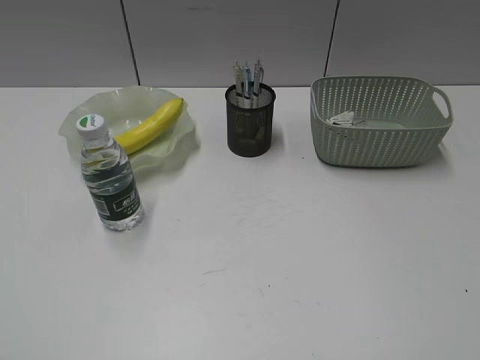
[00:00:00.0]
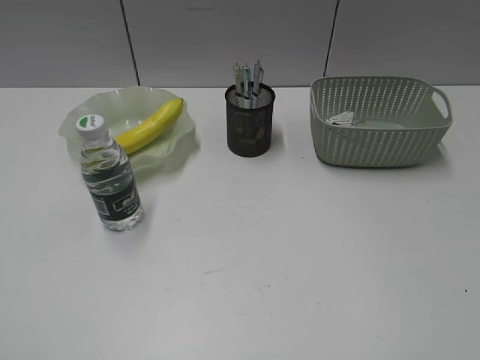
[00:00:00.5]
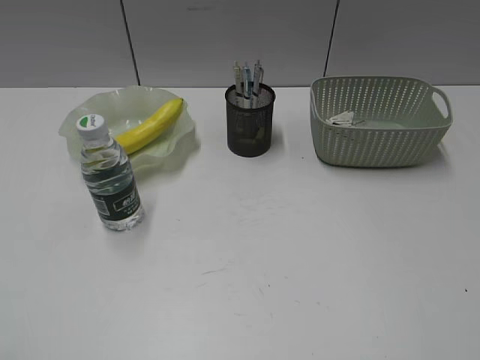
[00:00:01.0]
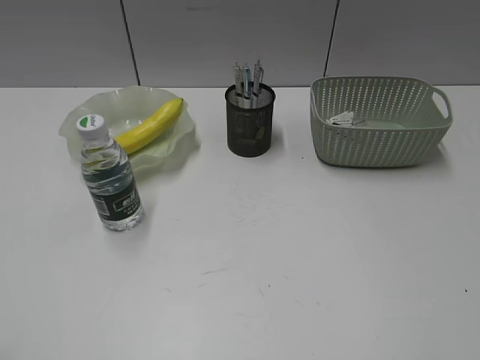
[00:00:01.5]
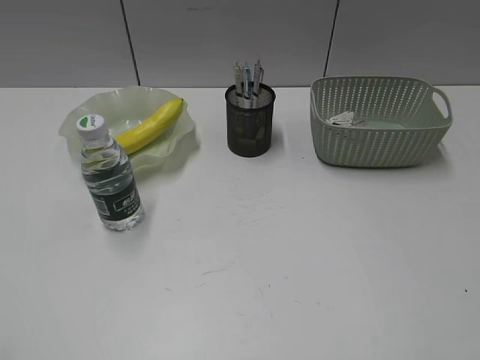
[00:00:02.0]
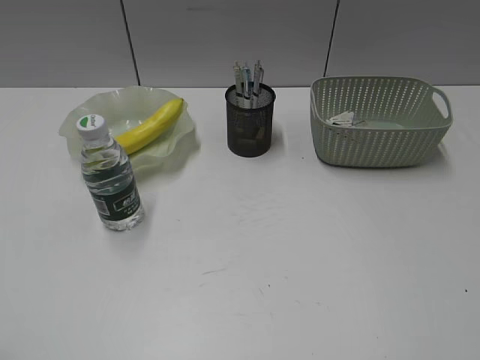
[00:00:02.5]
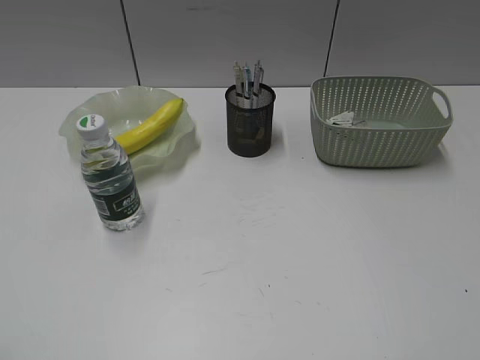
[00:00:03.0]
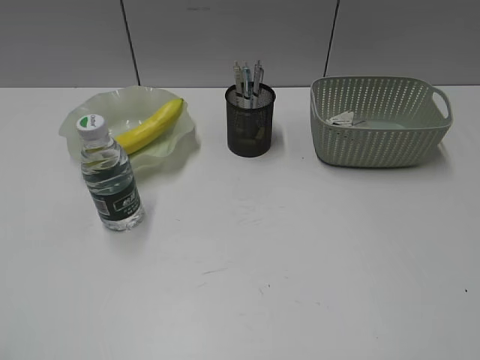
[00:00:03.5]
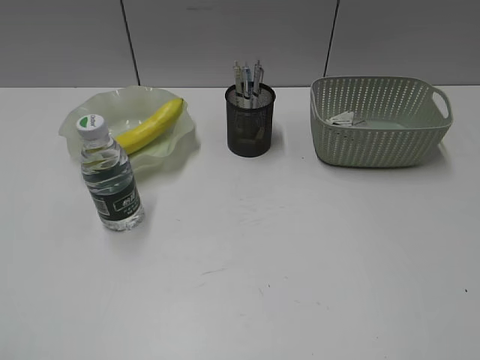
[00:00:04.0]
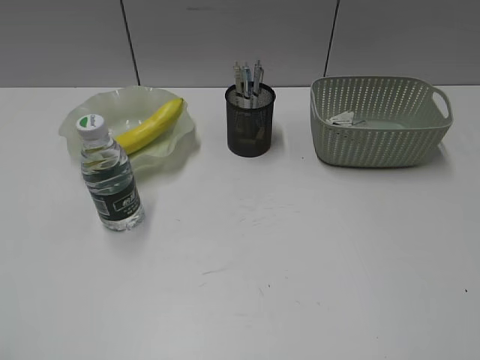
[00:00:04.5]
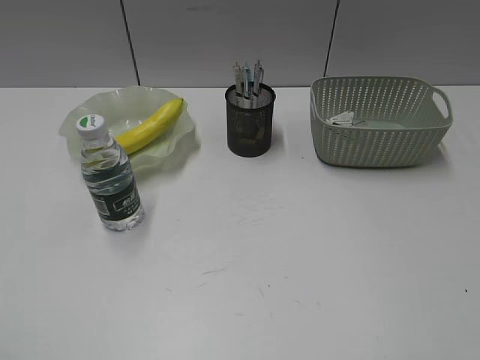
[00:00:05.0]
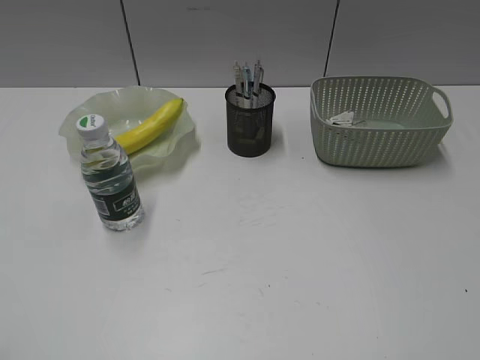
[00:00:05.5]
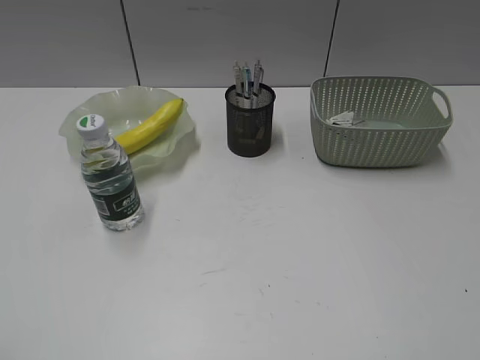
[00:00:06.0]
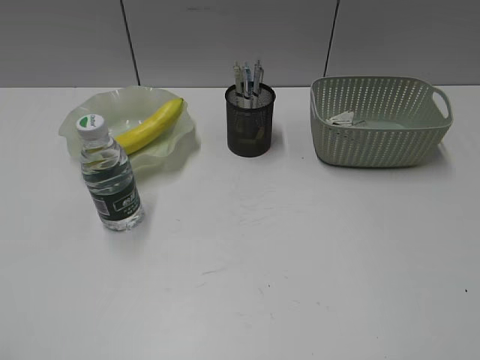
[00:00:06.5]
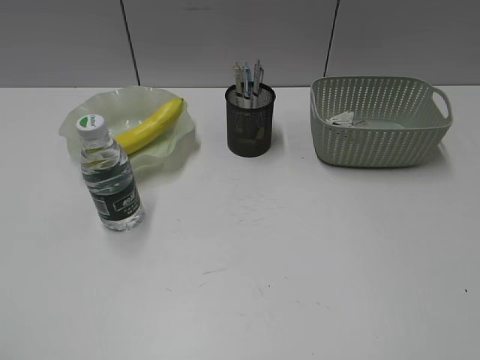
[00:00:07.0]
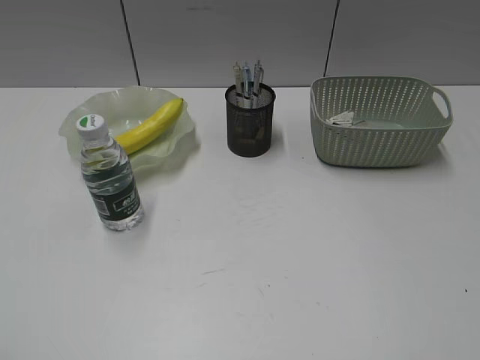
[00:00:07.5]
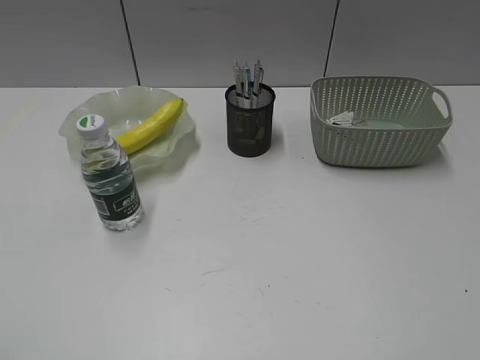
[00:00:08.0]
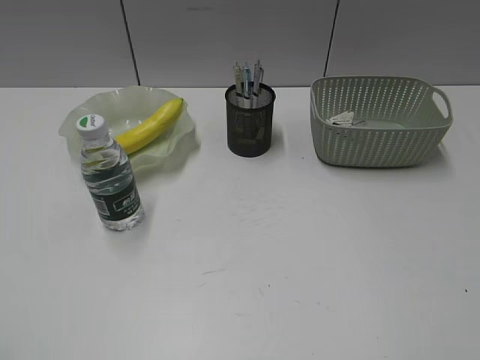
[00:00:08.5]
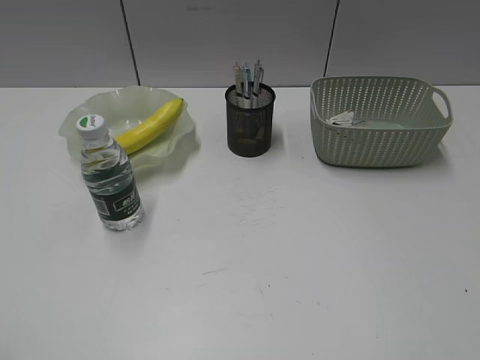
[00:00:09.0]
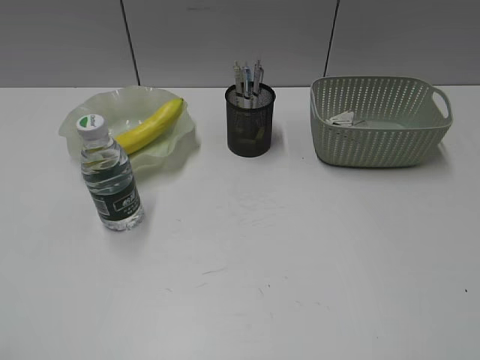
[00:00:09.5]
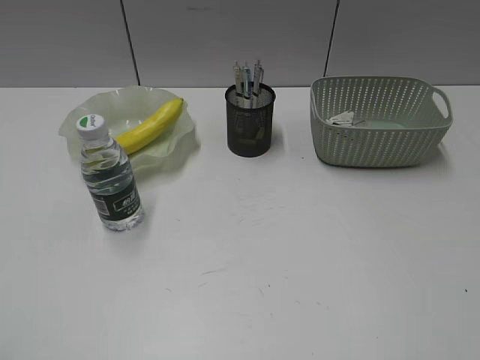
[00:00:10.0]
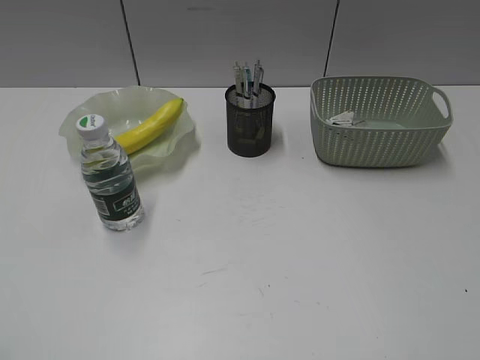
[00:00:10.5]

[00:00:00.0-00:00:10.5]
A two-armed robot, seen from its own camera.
00:00:04.0 to 00:00:10.5: Neither gripper changes place.

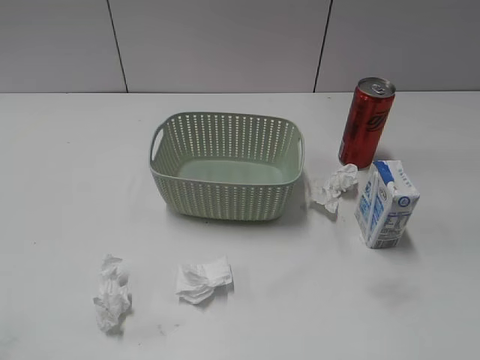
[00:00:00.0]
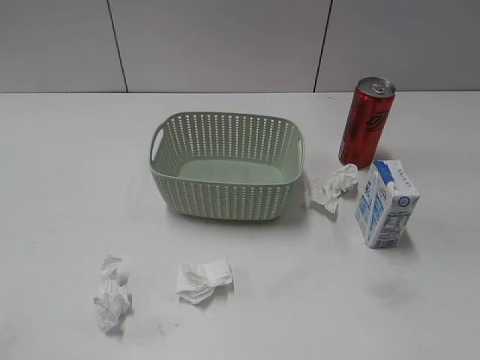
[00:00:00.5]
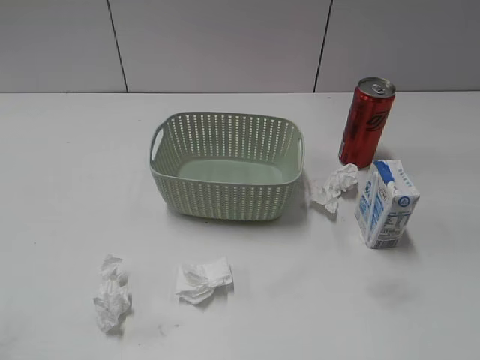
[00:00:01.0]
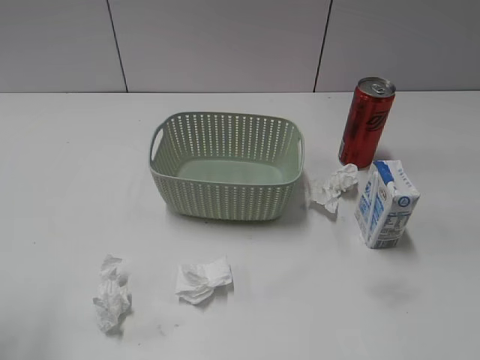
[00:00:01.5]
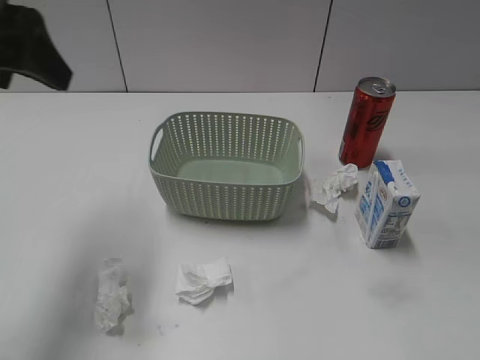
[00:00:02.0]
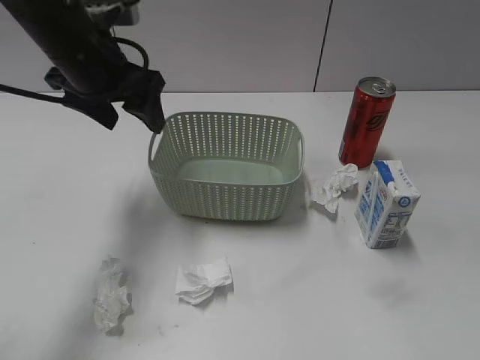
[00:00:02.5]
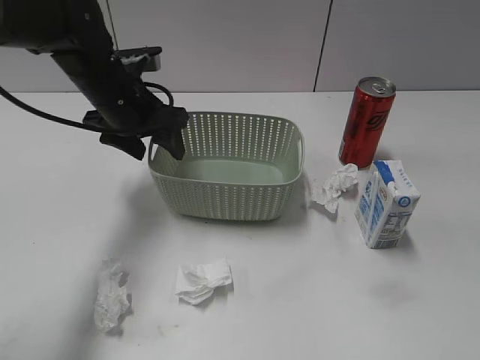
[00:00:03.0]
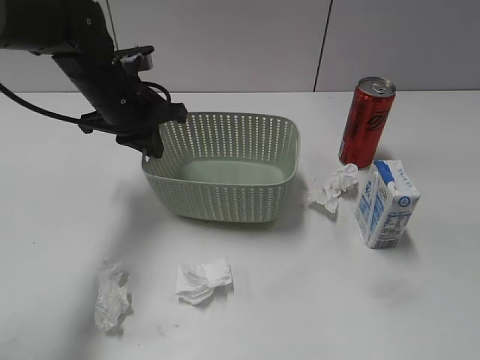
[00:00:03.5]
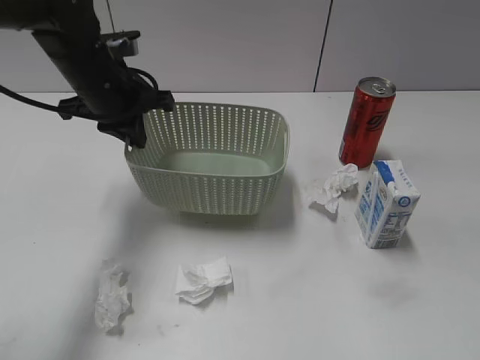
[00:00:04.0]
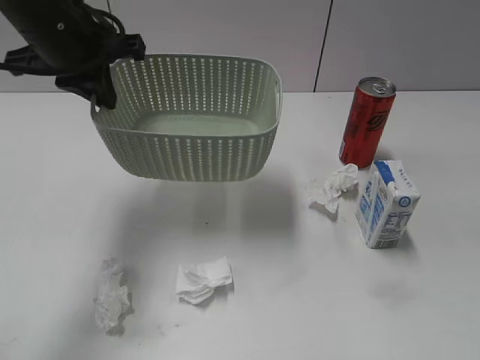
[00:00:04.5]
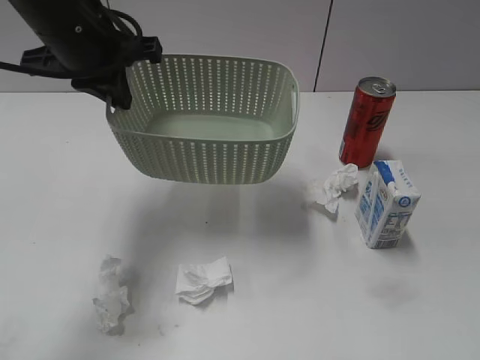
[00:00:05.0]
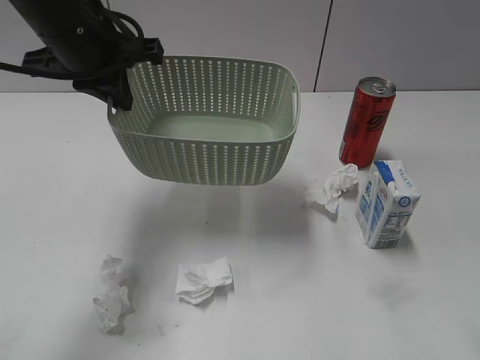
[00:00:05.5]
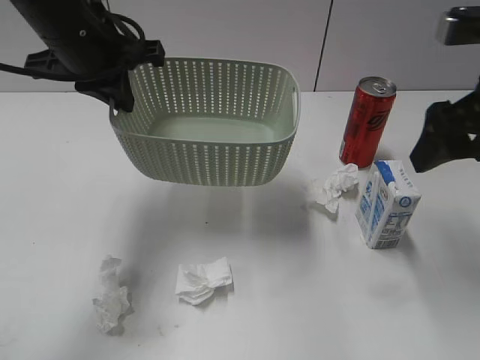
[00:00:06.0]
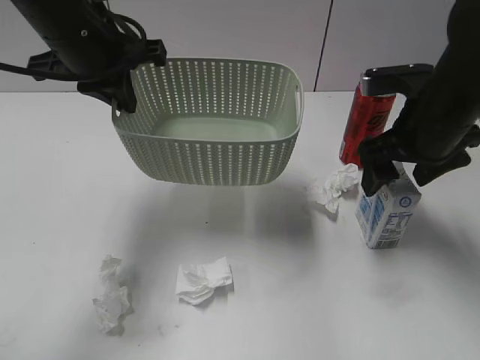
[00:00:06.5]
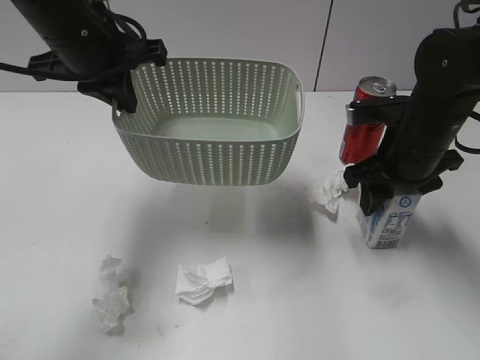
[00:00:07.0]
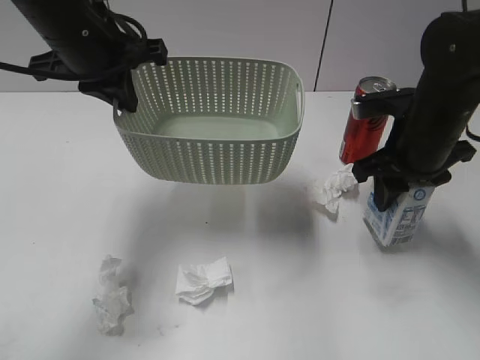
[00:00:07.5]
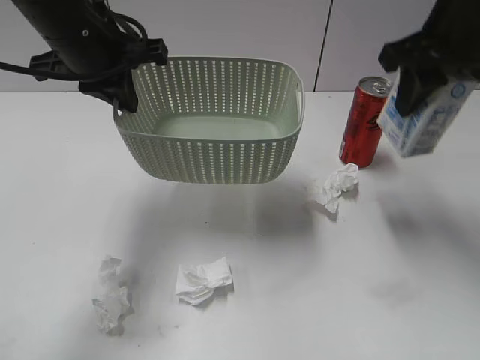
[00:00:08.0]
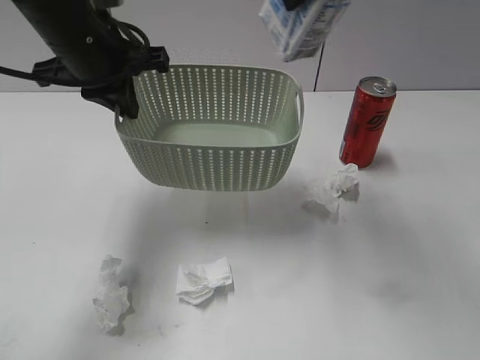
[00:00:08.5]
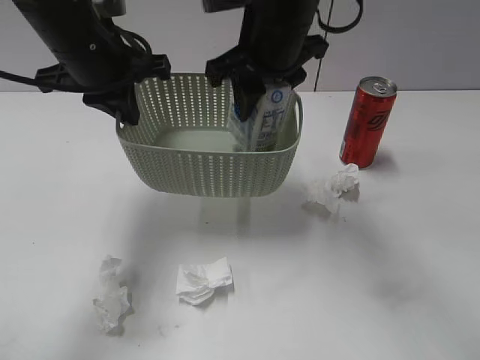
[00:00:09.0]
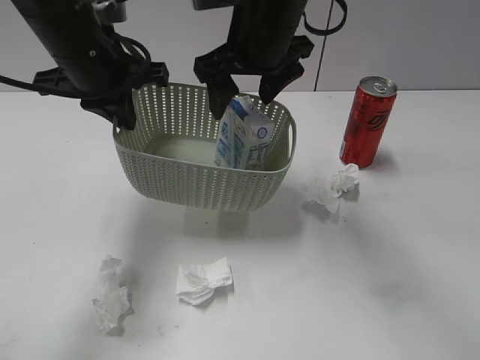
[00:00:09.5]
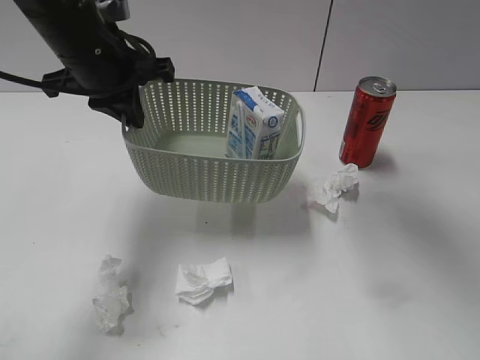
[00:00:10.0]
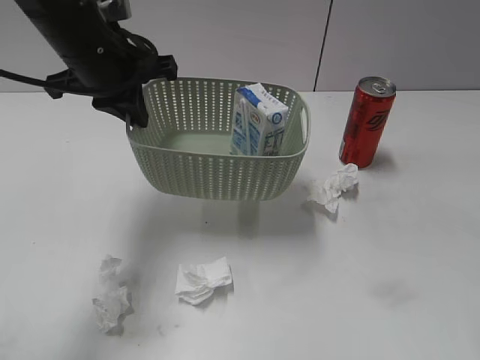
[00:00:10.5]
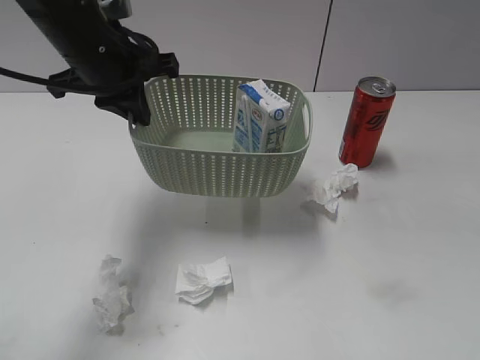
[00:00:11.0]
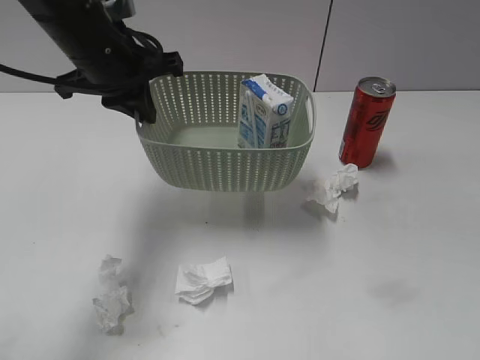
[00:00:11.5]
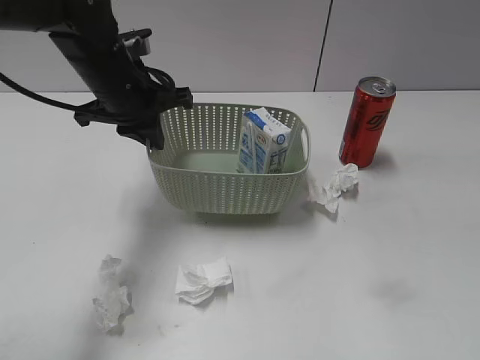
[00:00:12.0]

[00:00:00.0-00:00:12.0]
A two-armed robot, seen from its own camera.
Step, 00:00:02.0 to 00:00:03.5: Grasp the basket with left gripper.
Step, 00:00:04.0 to 00:00:04.5: Lift the basket with left gripper.
Step, 00:00:05.0 to 00:00:07.0: Grasp the milk with right gripper.
Step, 00:00:07.5 to 00:00:09.5: Place the milk in the basket with right gripper.
00:00:02.0 to 00:00:04.0: The left gripper is displaced downward, forward and to the right by approximately 20 cm, and closes up.
00:00:04.0 to 00:00:06.0: The left gripper moves upward, about 10 cm. Meanwhile the right gripper is displaced forward by approximately 25 cm.
00:00:06.0 to 00:00:08.0: The right gripper moves forward, about 5 cm, moves about 15 cm downward and comes back, and closes up.
00:00:08.0 to 00:00:10.0: The right gripper heads upward and to the left, covering about 15 cm, and opens its fingers.
00:00:10.0 to 00:00:12.0: The left gripper moves approximately 5 cm, while the right gripper heads backward, to the right and downward, covering about 40 cm.

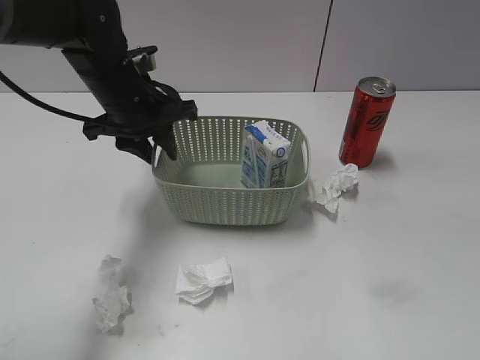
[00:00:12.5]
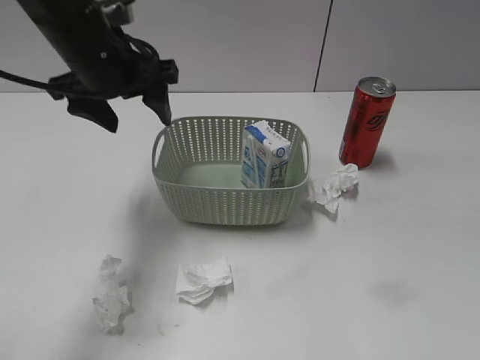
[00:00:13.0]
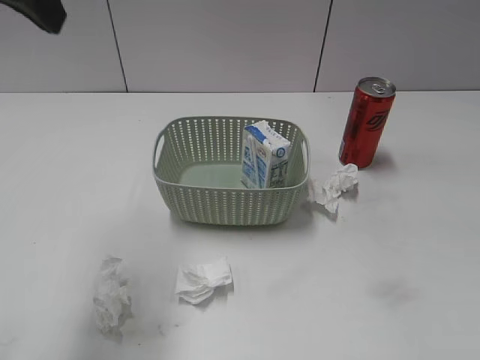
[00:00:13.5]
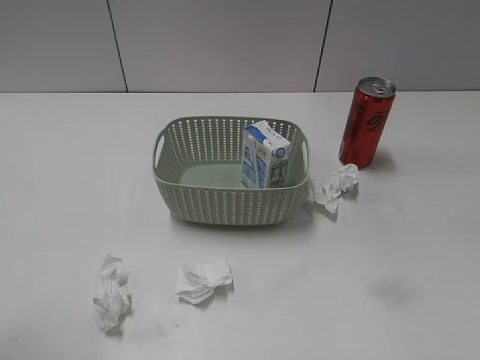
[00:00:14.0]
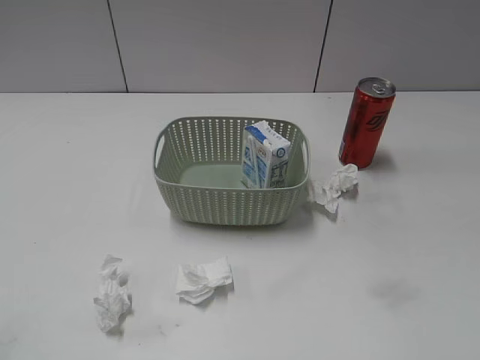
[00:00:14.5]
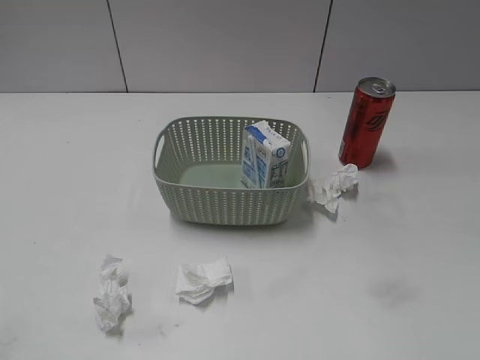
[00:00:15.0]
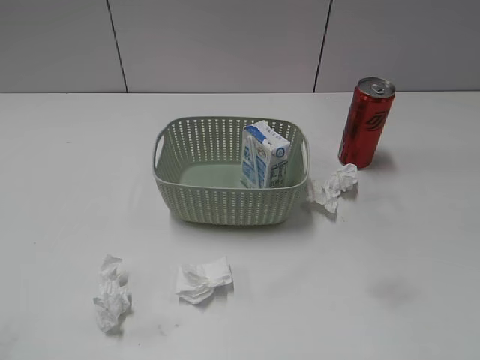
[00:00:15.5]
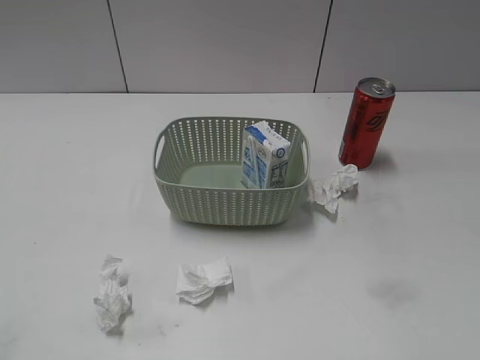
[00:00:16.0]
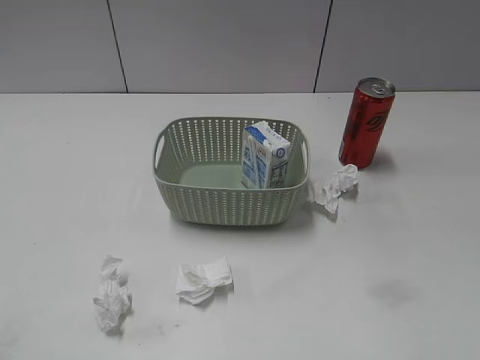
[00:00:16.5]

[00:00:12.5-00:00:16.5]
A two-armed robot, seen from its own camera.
00:00:12.5 to 00:00:14.5: The left gripper travels backward and to the left by roughly 40 cm, and opens its fingers.
